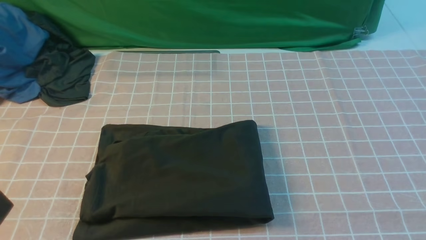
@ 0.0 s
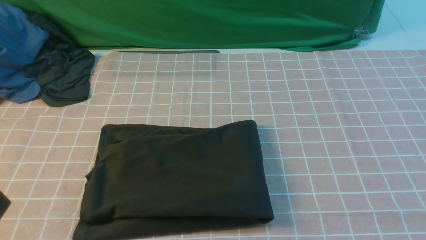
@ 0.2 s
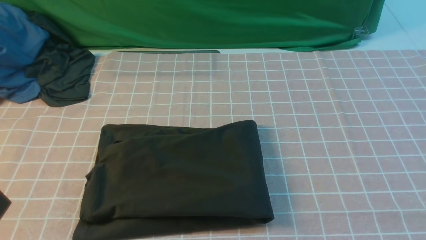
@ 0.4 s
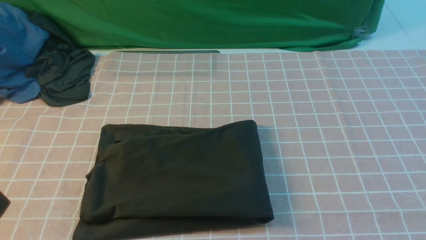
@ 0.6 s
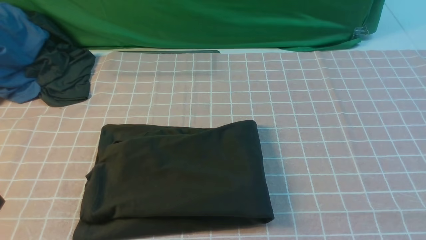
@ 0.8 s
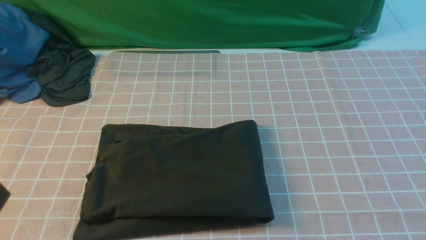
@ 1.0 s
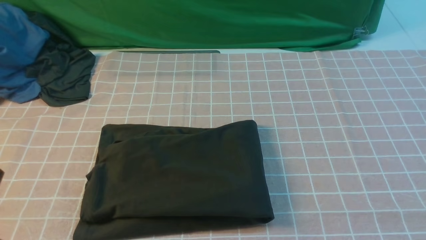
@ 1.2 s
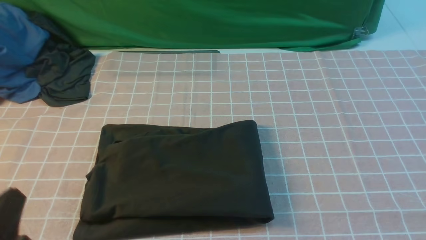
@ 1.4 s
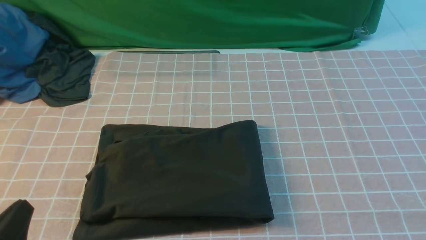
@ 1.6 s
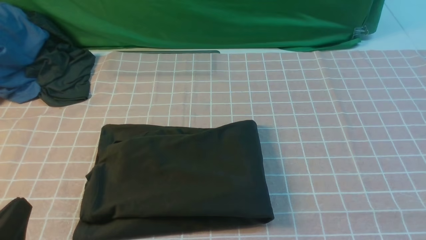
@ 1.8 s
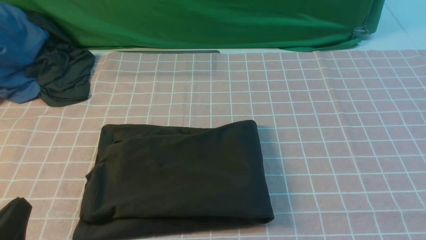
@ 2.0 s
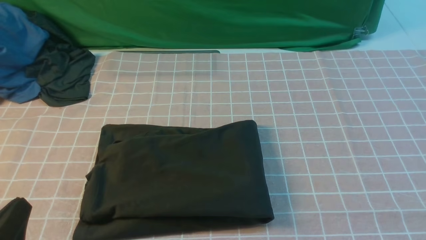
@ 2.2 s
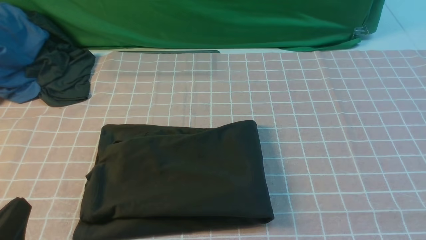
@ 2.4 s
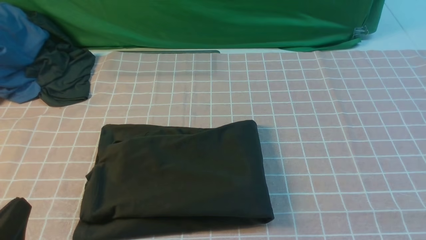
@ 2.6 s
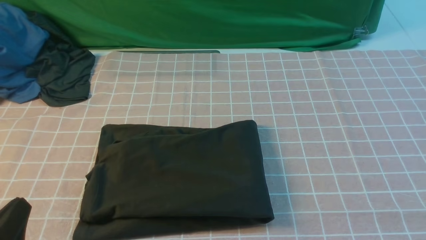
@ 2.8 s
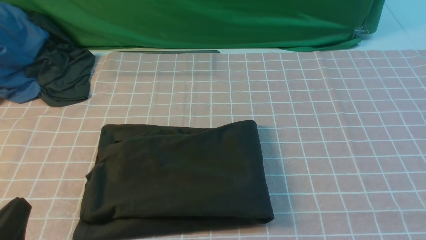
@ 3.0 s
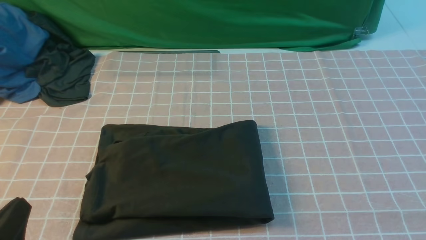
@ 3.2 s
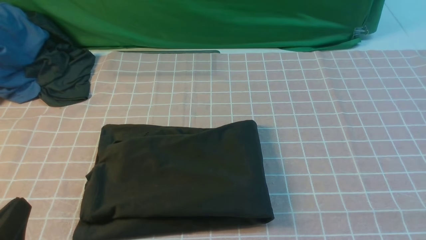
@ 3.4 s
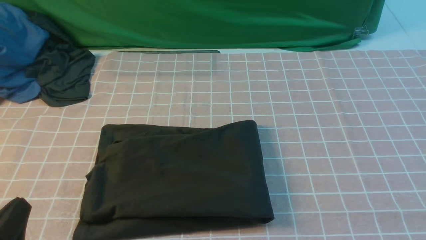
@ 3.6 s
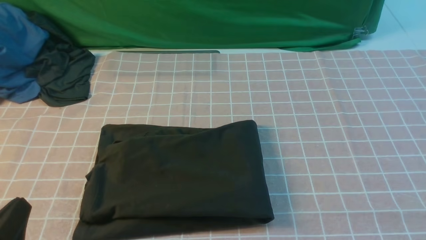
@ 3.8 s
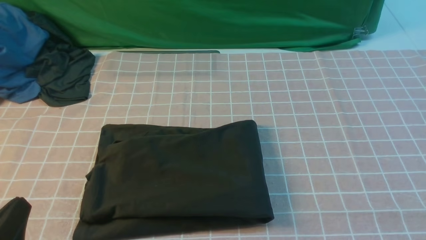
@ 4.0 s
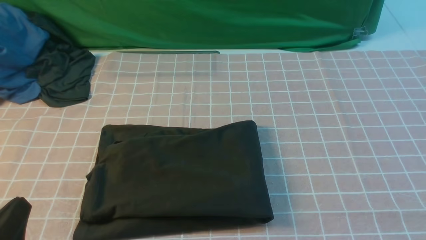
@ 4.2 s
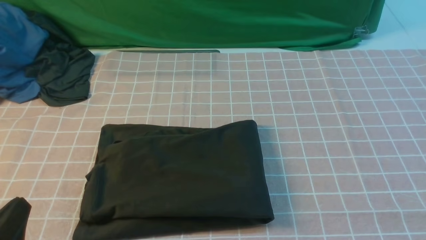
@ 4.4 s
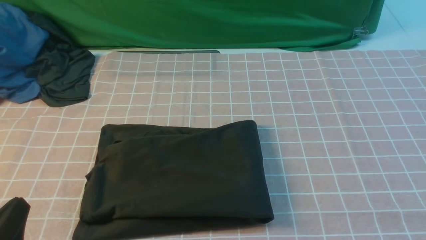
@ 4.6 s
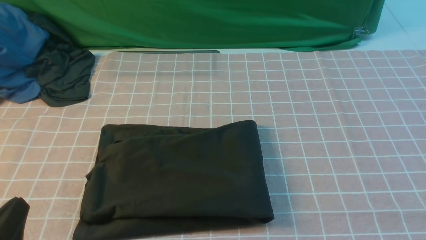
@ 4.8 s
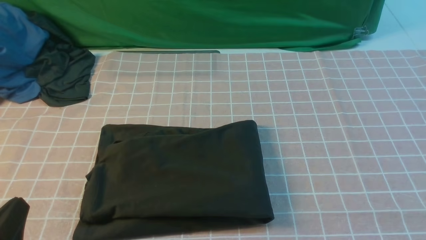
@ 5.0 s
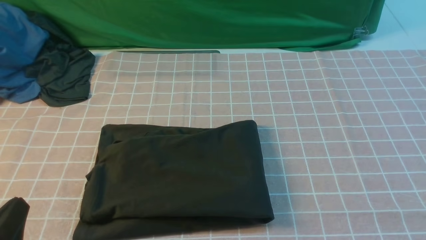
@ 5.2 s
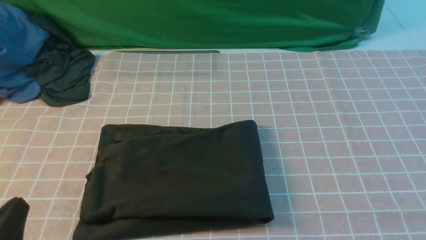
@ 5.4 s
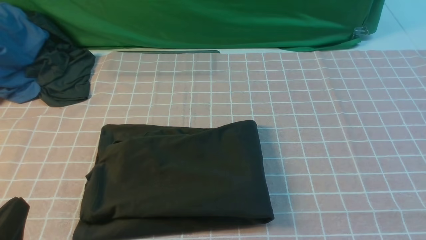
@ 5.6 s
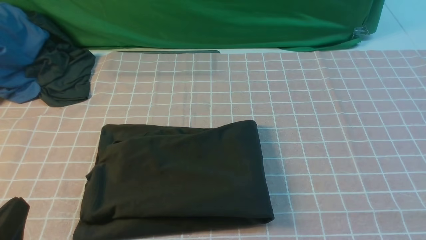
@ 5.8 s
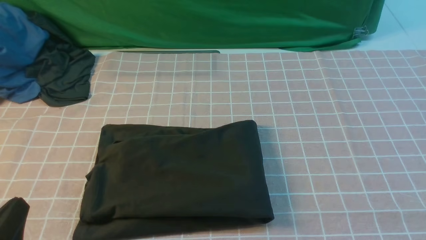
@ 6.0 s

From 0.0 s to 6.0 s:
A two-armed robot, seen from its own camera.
From 0.0 s to 1.6 s: The left gripper moves downward, roughly 10 cm.
From 1.6 s to 3.0 s: Neither gripper changes place.
From 4.4 s to 6.0 s: Both grippers stay about where they are.
